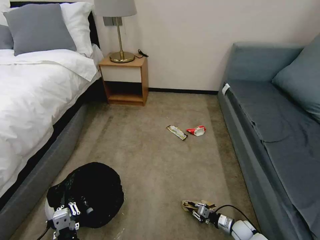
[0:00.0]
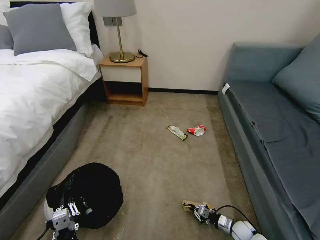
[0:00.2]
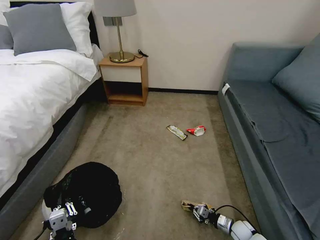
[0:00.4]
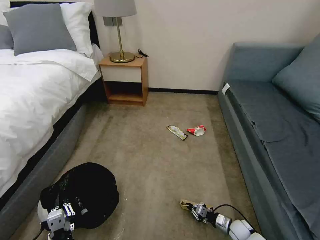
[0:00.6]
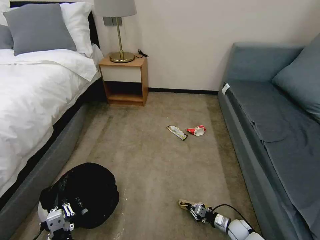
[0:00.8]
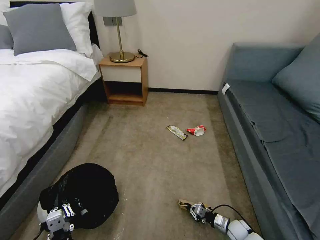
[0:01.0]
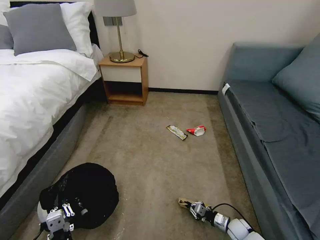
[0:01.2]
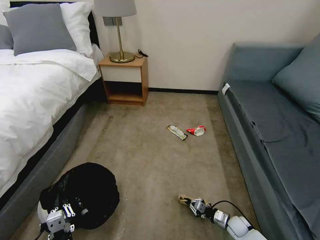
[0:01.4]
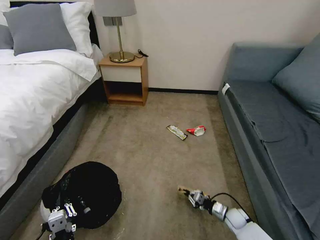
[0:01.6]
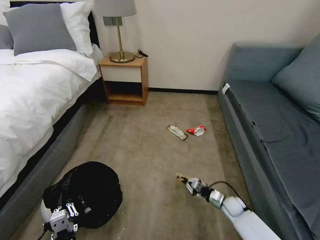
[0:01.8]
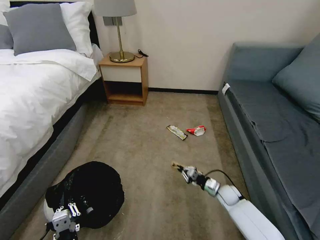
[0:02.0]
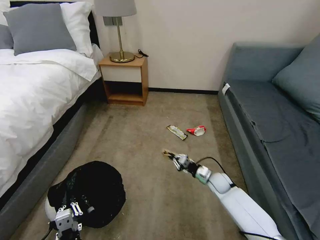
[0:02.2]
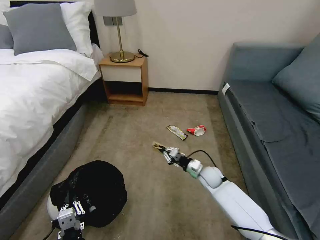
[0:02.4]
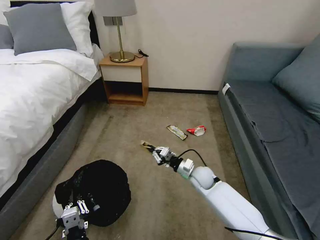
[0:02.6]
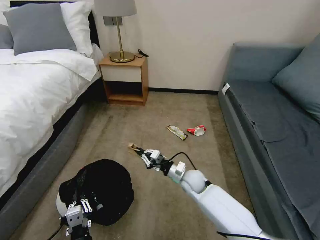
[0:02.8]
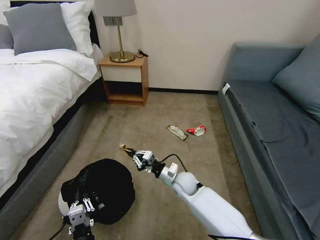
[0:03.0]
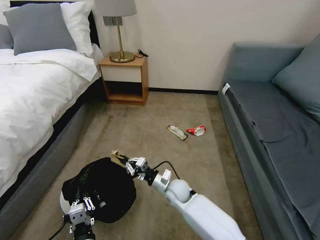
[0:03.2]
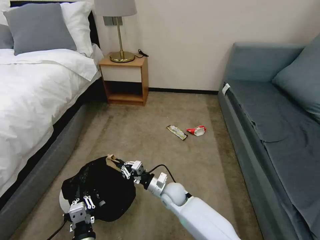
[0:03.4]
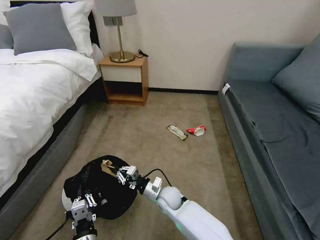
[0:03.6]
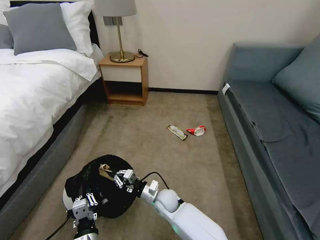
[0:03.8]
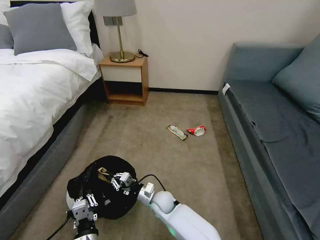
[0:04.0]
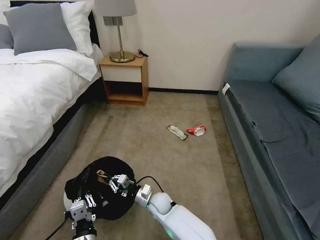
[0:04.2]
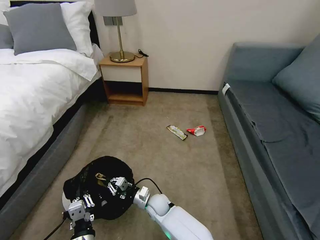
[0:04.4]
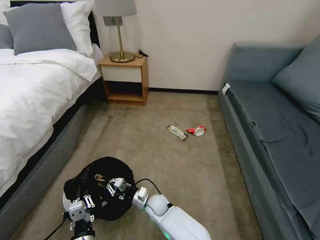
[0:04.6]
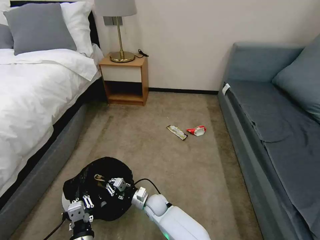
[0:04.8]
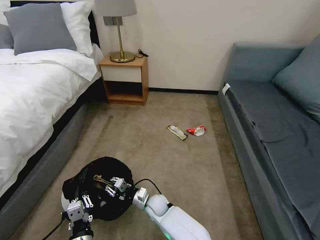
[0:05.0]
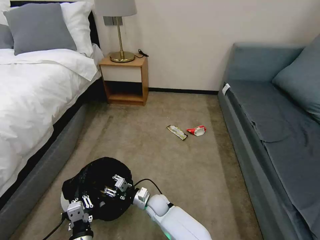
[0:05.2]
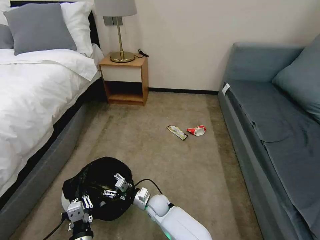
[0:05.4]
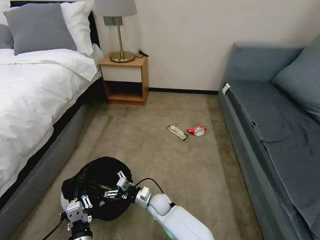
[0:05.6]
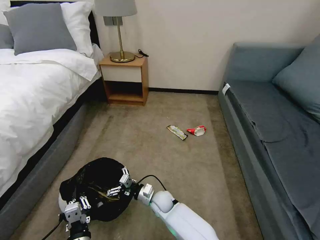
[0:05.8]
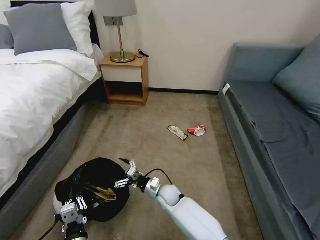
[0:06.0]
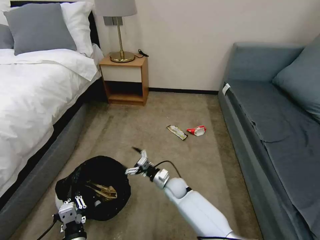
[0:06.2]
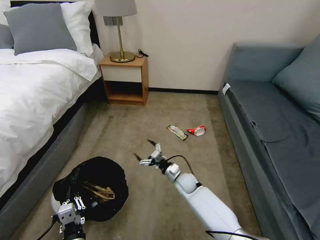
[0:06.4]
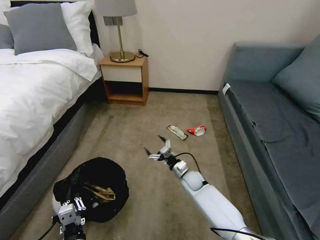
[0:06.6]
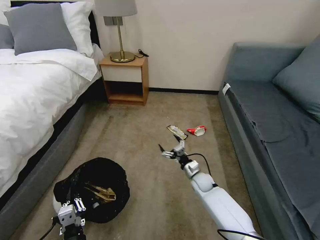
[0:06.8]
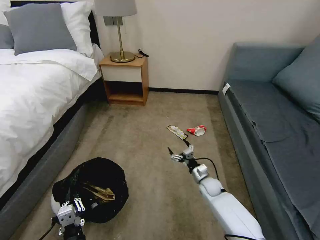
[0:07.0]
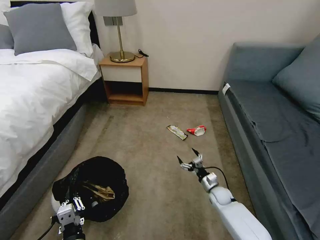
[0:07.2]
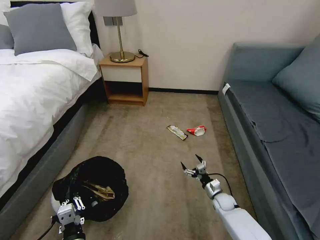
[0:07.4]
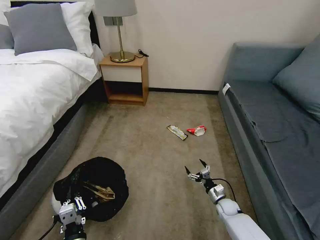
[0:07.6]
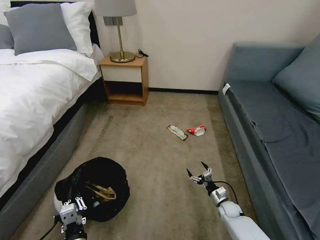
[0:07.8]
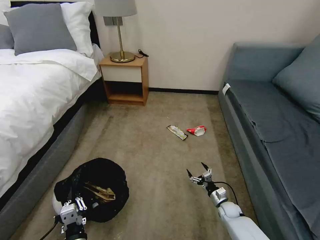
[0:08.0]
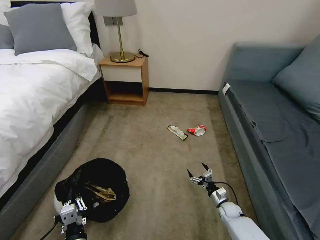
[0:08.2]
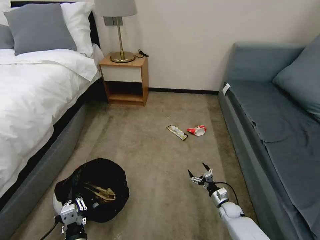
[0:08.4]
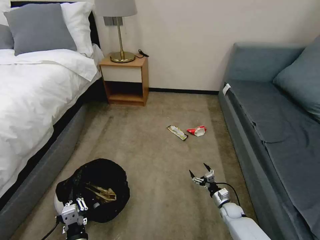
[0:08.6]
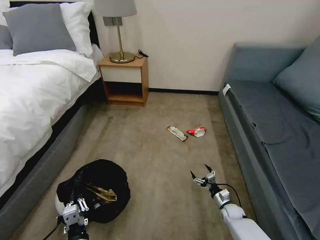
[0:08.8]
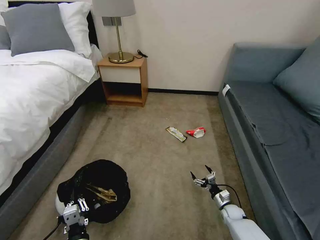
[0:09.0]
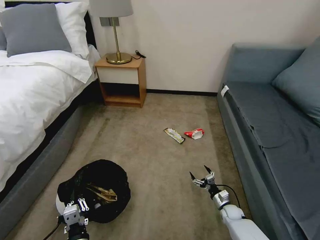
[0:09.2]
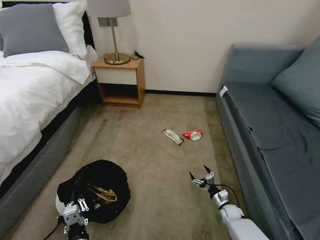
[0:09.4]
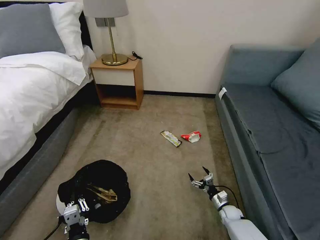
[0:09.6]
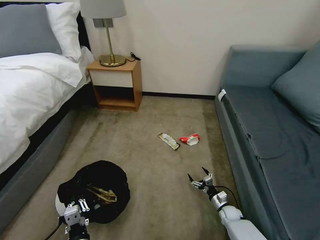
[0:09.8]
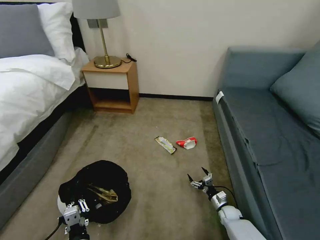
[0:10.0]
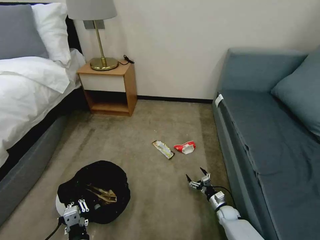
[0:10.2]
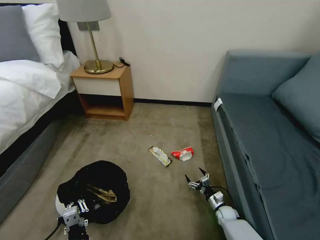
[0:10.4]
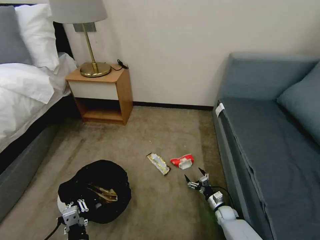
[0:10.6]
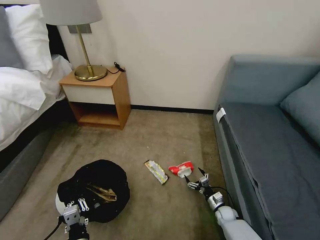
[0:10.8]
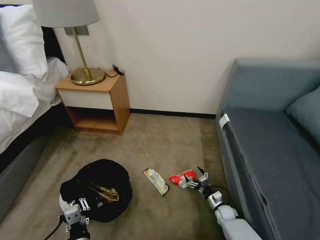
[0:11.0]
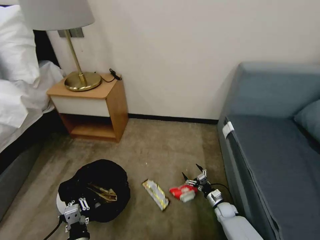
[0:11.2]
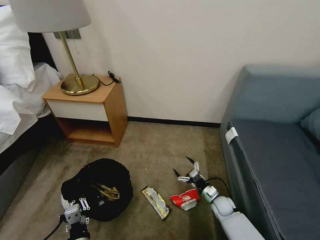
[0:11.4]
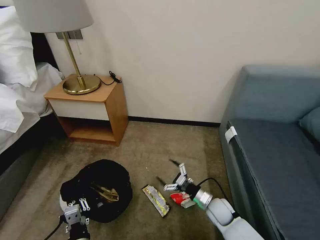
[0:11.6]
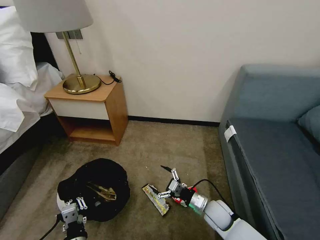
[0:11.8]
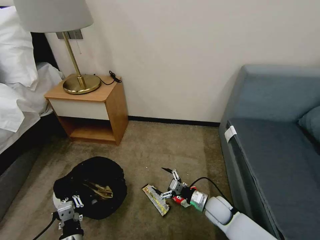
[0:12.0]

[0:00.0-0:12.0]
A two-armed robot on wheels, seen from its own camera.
Task of the whole recording: Pick up the trash bin, then pick up the garbage on the floor and place it into the trash bin.
0:00.0 to 0:01.6: The right gripper changes place by roughly 5 cm.
0:01.6 to 0:03.0: The right gripper goes about 30 cm to the left and upward.
0:03.0 to 0:04.4: The right gripper moves to the left, downward and backward, about 15 cm.
0:04.4 to 0:06.0: The right gripper ends up some 5 cm from where it was, and opens its fingers.
0:06.0 to 0:07.6: The right gripper travels to the right by some 30 cm.
0:07.6 to 0:09.0: The grippers move only a little.
0:10.4 to 0:12.0: The right gripper heads upward and to the left, covering some 20 cm.

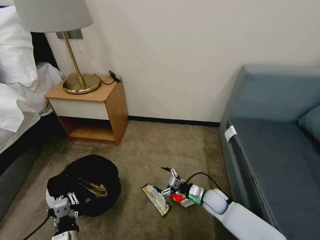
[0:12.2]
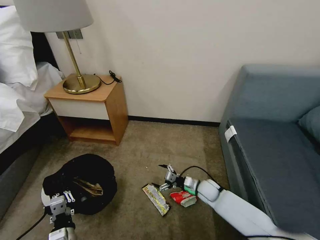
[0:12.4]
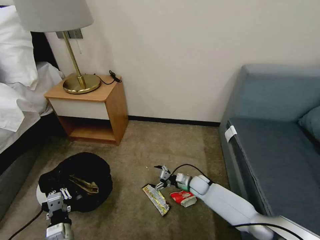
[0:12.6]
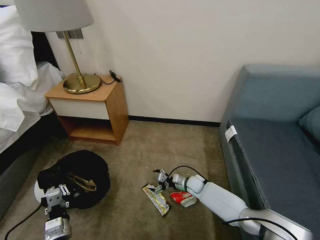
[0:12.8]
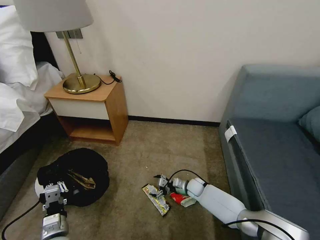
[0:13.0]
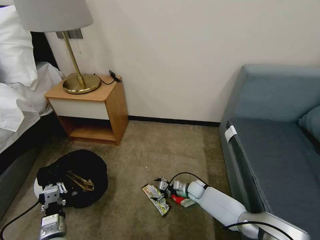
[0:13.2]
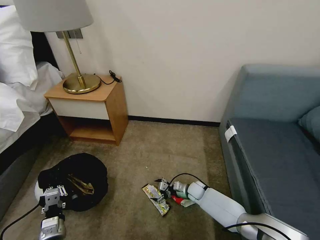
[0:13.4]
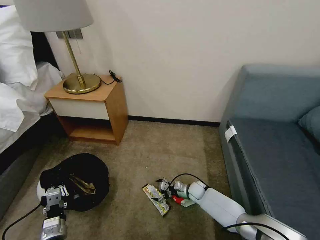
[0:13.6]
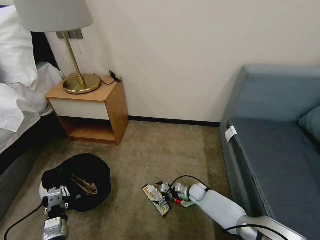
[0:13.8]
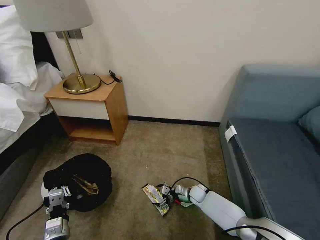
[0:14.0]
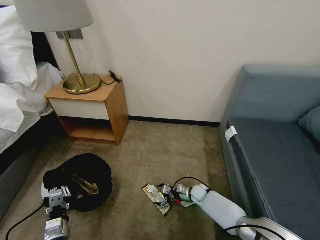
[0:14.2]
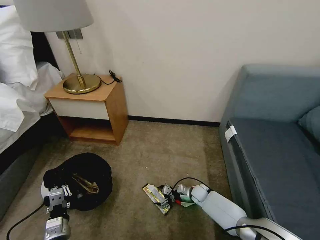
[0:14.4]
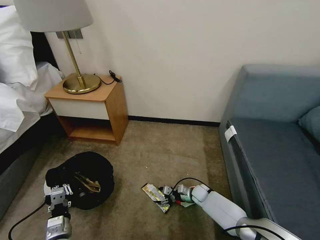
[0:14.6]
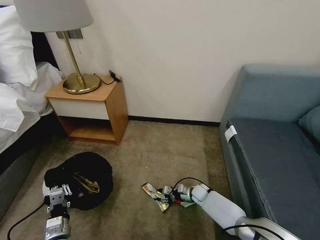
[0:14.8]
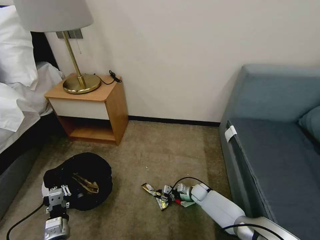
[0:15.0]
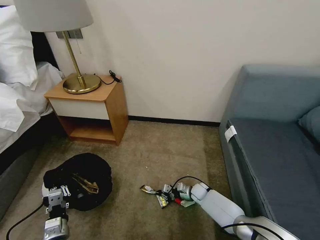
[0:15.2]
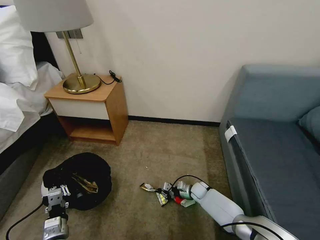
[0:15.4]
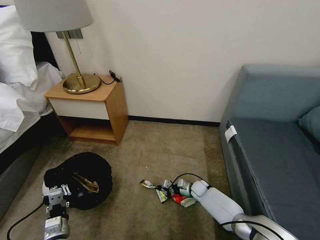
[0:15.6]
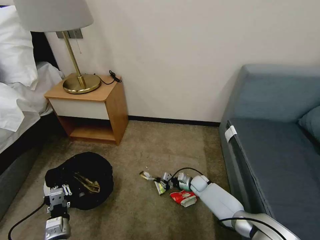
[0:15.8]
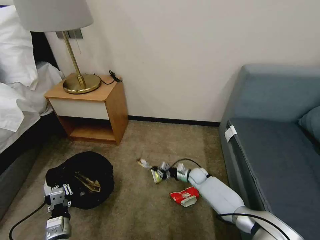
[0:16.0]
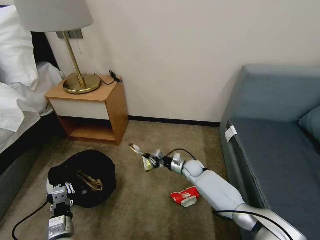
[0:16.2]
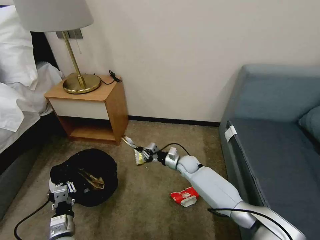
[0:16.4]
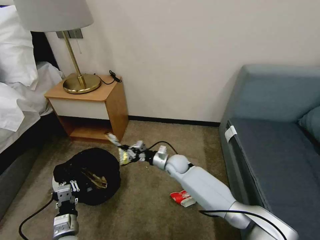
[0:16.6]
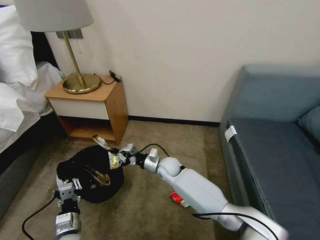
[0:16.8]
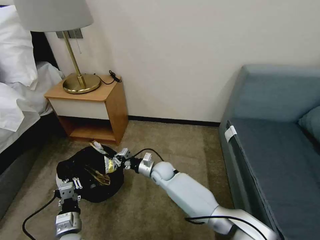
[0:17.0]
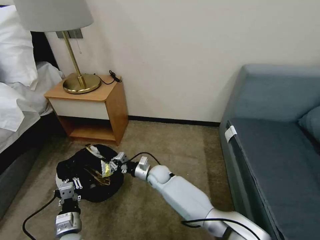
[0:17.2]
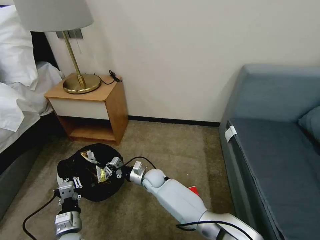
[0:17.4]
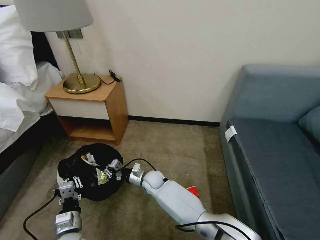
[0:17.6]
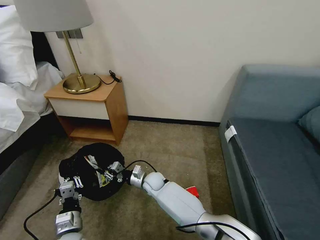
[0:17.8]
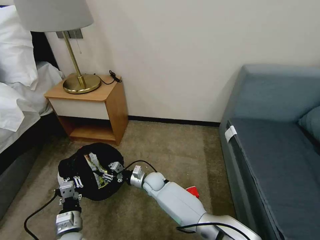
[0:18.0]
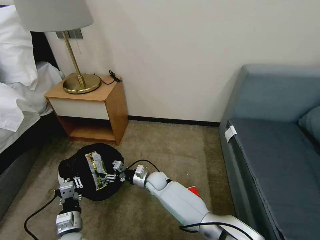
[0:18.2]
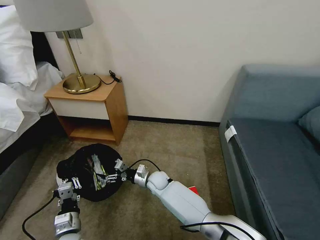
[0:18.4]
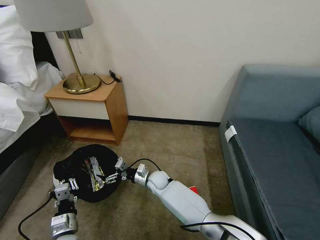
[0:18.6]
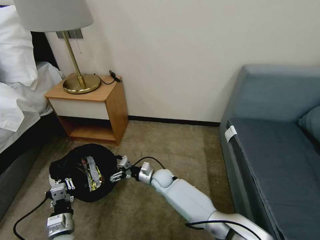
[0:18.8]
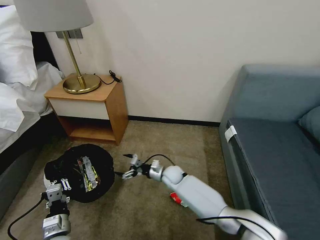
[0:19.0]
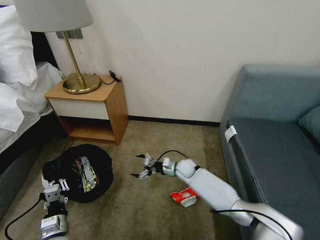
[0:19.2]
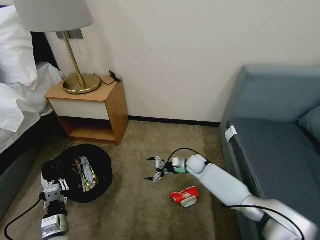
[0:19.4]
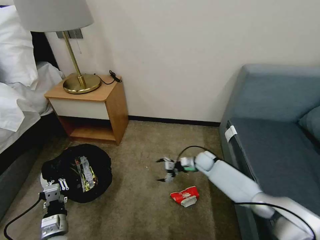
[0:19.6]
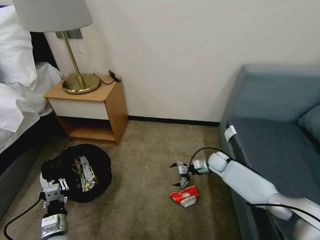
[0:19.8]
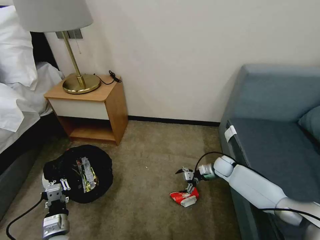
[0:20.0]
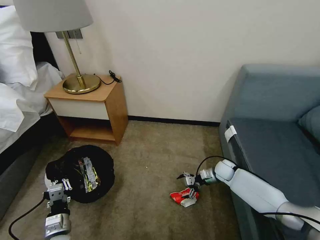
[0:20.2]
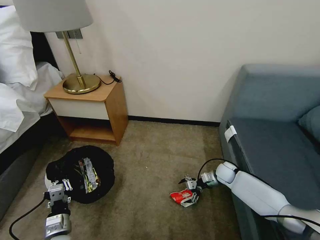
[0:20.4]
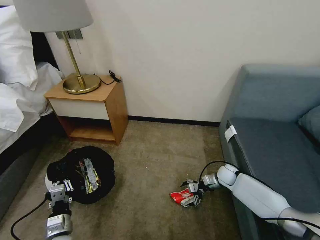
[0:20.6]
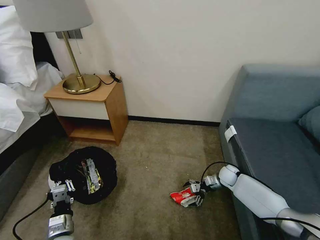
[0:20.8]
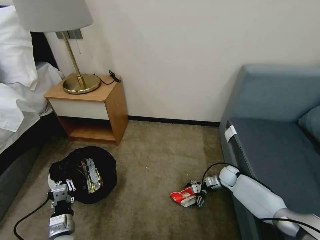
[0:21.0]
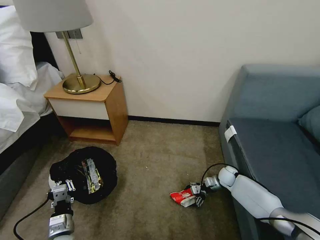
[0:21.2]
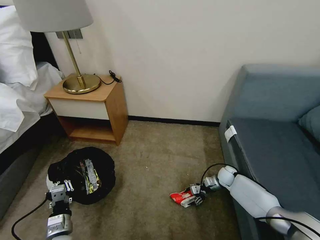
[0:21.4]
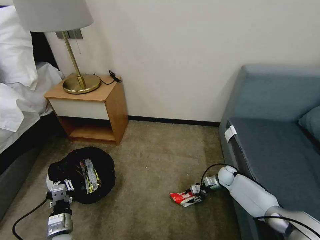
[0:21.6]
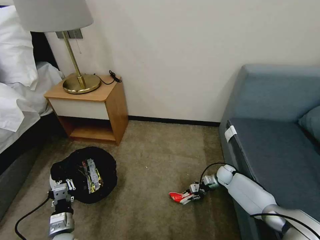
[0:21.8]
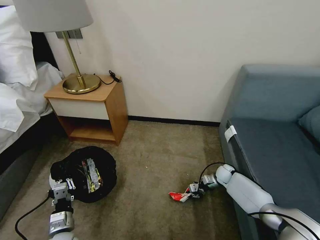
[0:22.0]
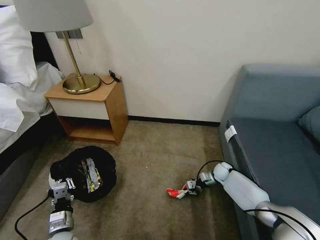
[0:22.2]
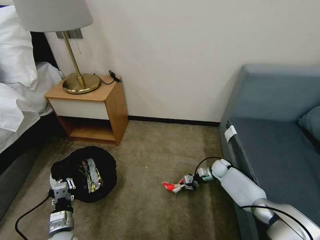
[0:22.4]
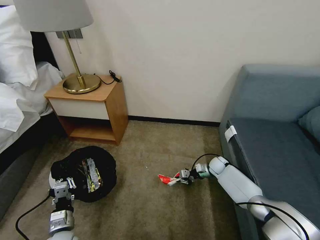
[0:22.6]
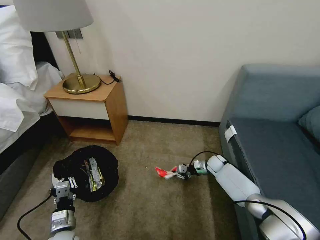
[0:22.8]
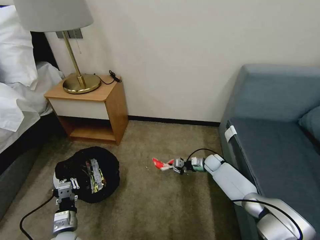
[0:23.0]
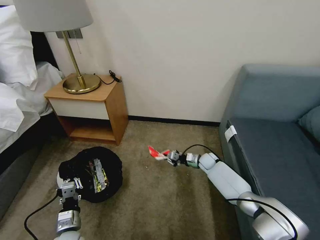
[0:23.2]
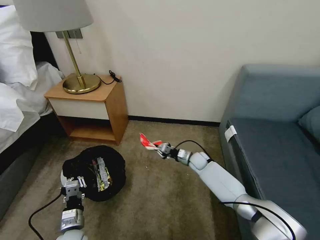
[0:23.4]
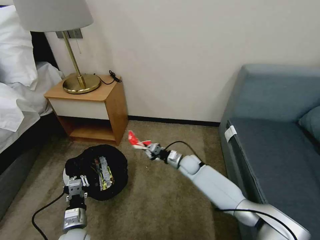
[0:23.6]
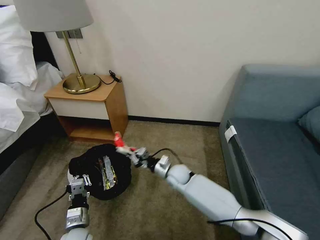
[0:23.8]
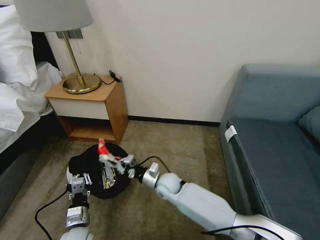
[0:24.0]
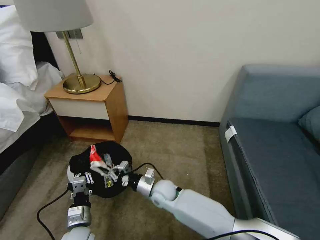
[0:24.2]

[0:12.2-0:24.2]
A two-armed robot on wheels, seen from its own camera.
Task of the whole recording: Pick up the trash bin, then pick up the garbage on the floor and place it into the trash bin.
0:12.2 to 0:13.8: The left gripper shifts about 5 cm to the left. The right gripper moves downward and forward, roughly 10 cm.
0:13.8 to 0:15.2: The right gripper closes.
0:15.2 to 0:16.6: The right gripper is displaced upward and to the left by about 20 cm.
0:16.6 to 0:18.2: The right gripper moves to the left, downward and backward, some 15 cm, and opens up.
0:18.2 to 0:19.8: The right gripper moves to the right, approximately 30 cm, and opens its fingers.
0:19.8 to 0:21.2: The right gripper moves downward and to the right, some 10 cm.
0:21.2 to 0:22.6: The right gripper shifts by about 5 cm, and closes its fingers.
0:22.6 to 0:24.2: The left gripper shifts approximately 5 cm to the right; the right gripper moves to the left and backward, about 35 cm.
